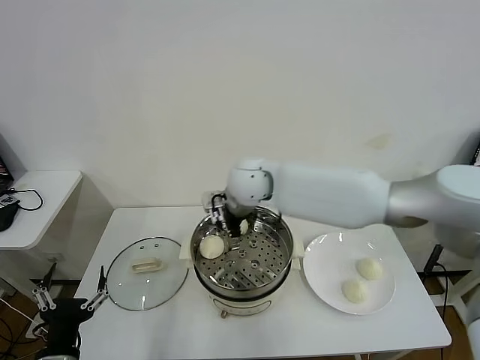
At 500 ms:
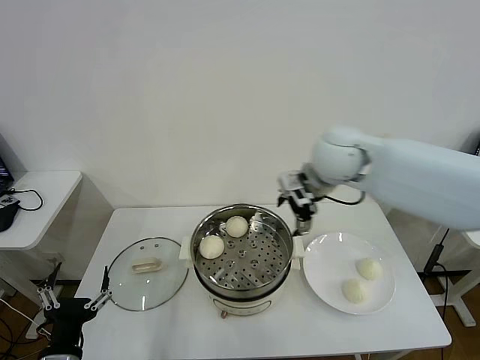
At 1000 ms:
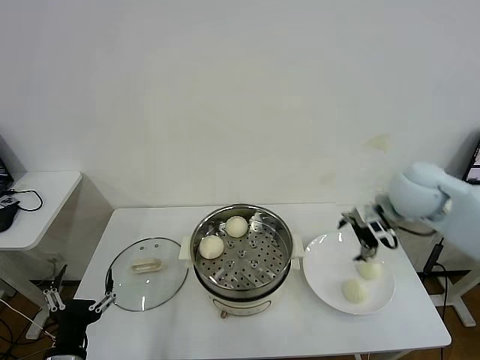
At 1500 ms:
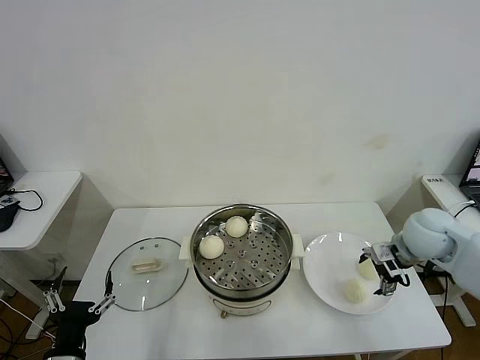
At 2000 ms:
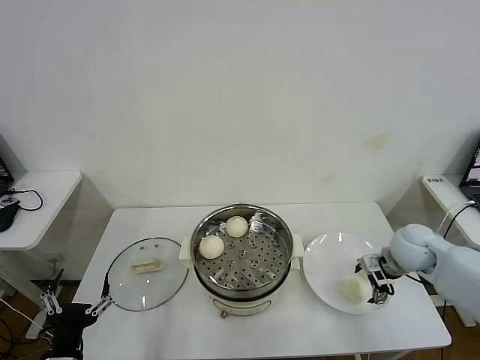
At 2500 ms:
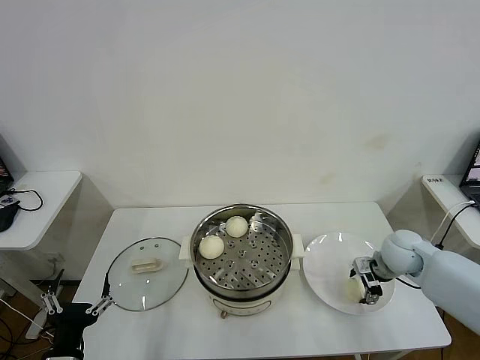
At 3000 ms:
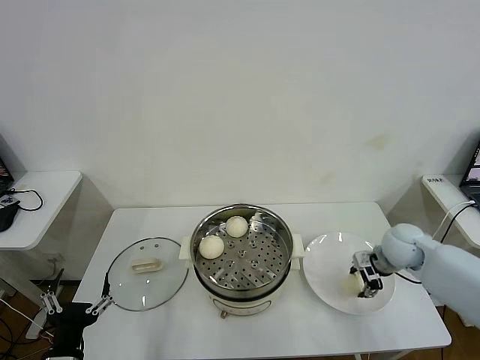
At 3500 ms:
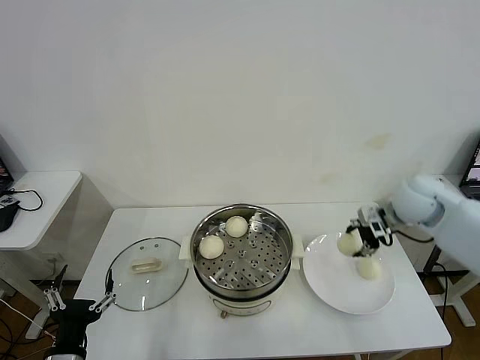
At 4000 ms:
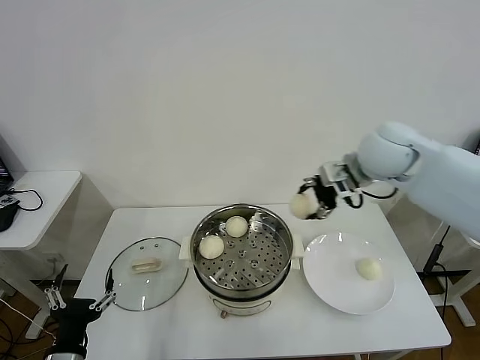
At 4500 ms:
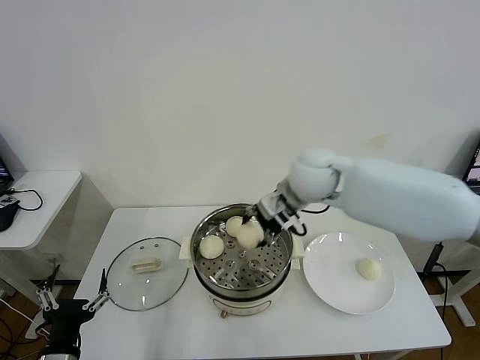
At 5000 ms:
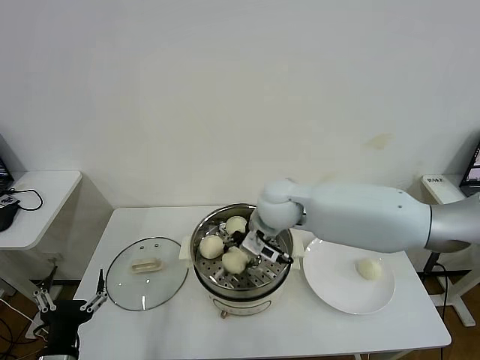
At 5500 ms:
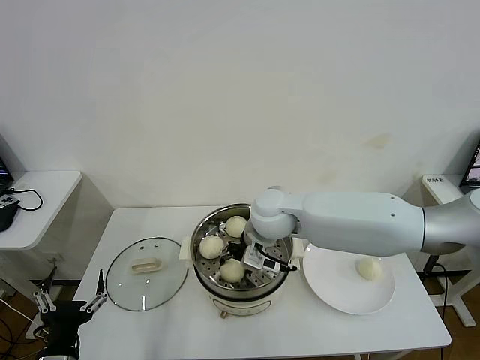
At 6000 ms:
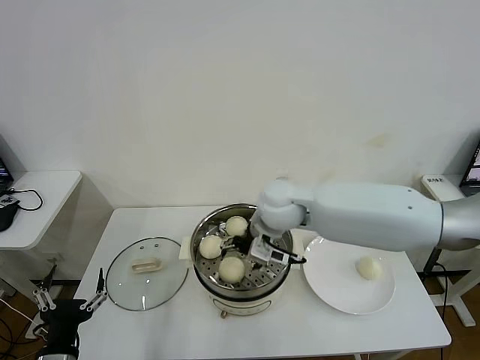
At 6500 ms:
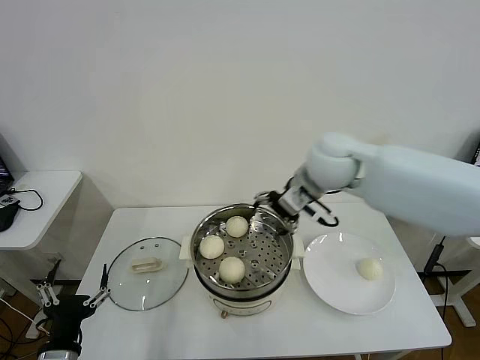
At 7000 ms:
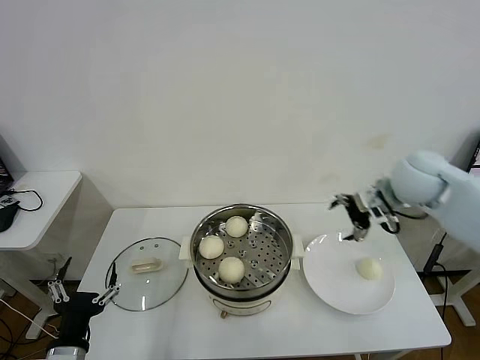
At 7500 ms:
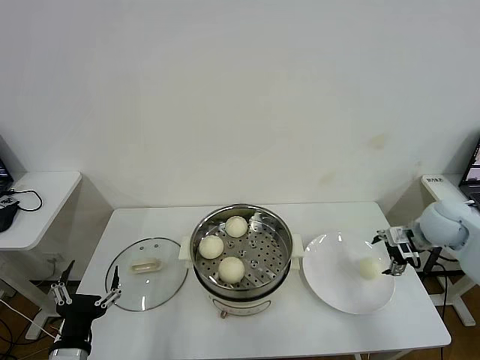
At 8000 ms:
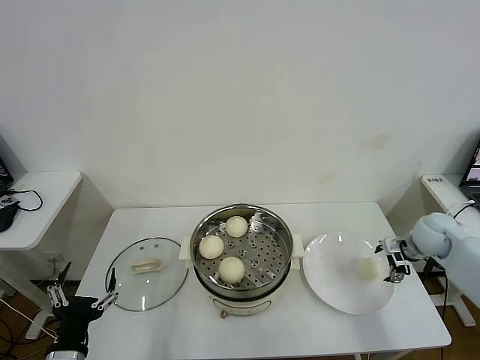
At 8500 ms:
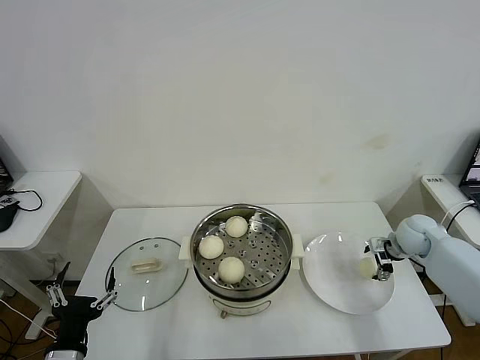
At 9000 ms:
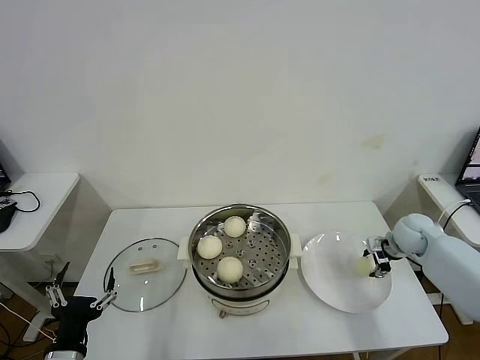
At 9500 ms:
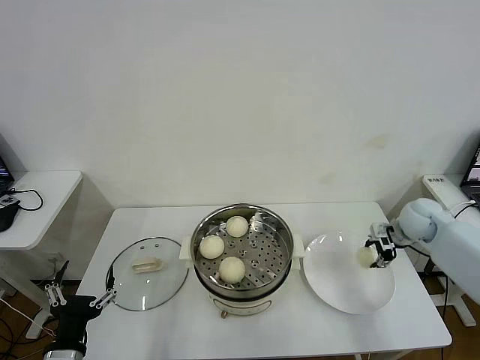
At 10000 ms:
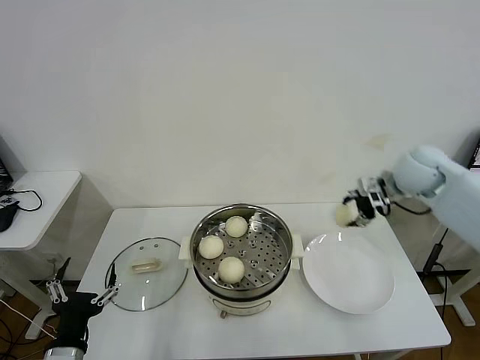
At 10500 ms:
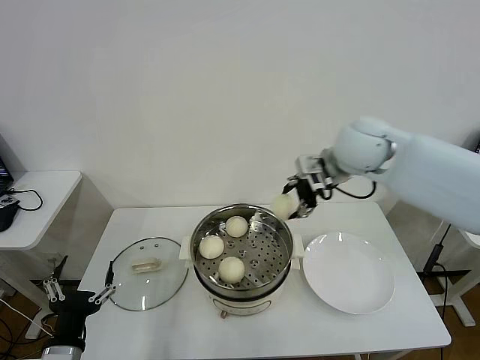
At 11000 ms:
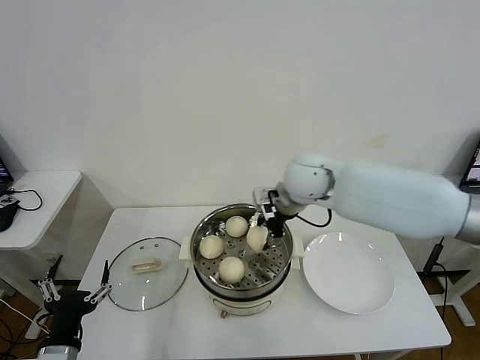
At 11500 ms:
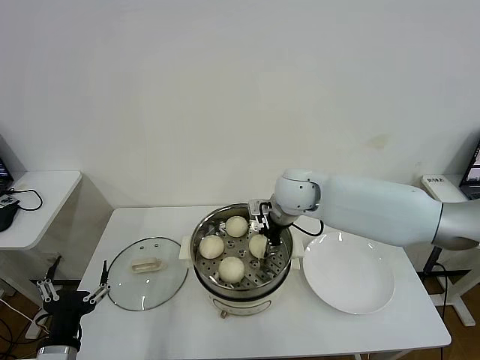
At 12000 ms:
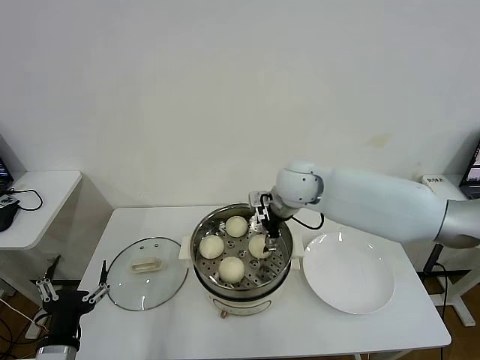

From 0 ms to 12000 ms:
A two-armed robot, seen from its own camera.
Task of the whole recording: take steamed baozi put them in steamer then cover it.
Step, from 0 ms to 2500 ms: Grasp the baozi in the plate with right gripper.
Step, from 3000 ms to 5500 ms: Place the baozi on the steamer with right gripper.
Step, from 6000 ms to 9000 ms: Grasp the baozi in the plate with right gripper.
Step, from 9500 ms to 11500 ms: Place the baozi on the steamer with right gripper.
From 0 ms to 2000 ms: The right gripper shifts about 35 cm to the right.
From 2000 ms to 4000 ms: The right gripper shifts roughly 25 cm upward and to the left, and closes.
From 4000 ms to 6000 ms: The right gripper goes some 20 cm to the left and downward, and opens.
From 6000 ms to 8000 ms: The right gripper heads to the right, covering about 40 cm.
From 8000 ms to 10000 ms: The right gripper travels upward and to the left by roughly 20 cm, and closes up.
From 10000 ms to 12000 ms: The right gripper shifts approximately 25 cm to the left, and opens.

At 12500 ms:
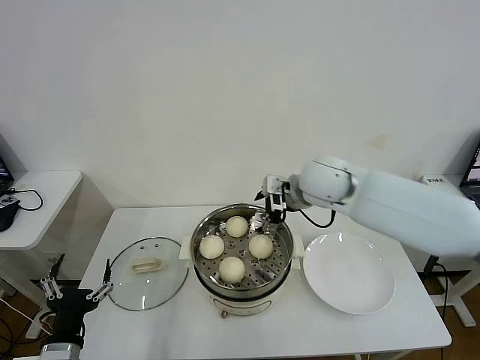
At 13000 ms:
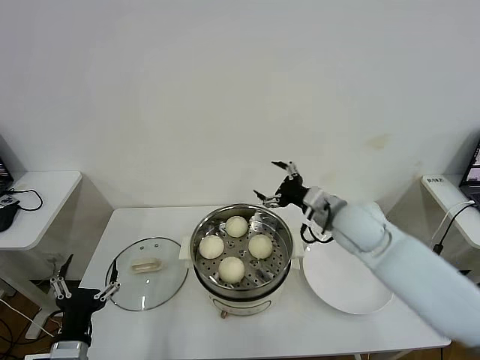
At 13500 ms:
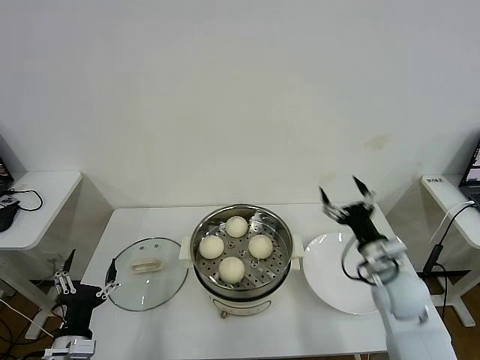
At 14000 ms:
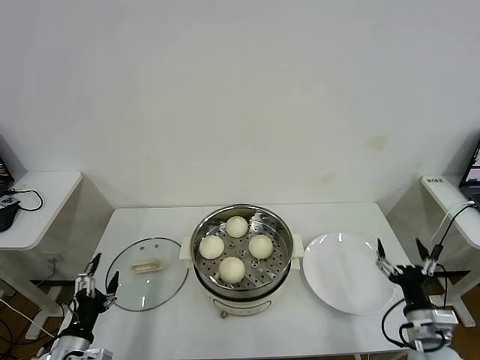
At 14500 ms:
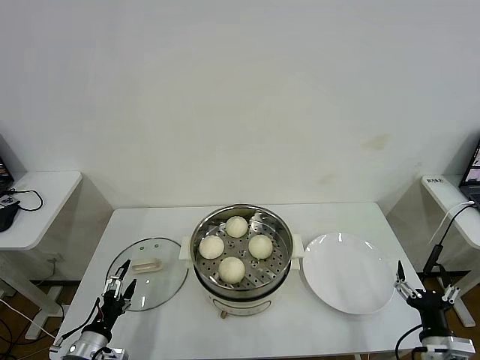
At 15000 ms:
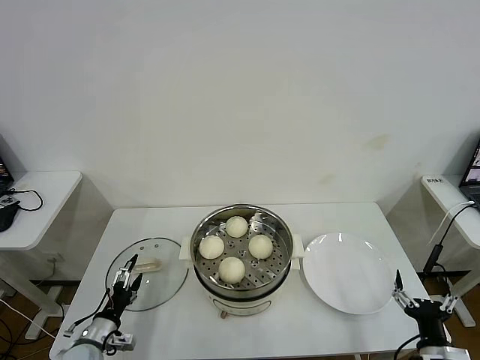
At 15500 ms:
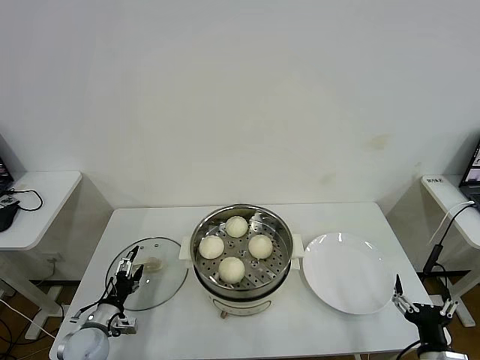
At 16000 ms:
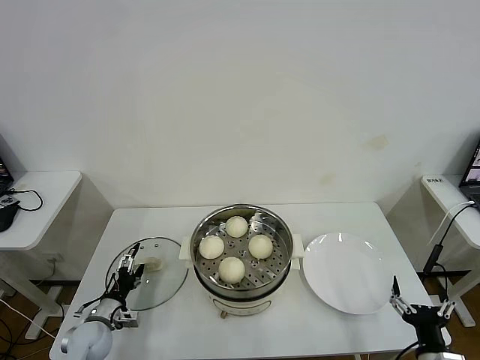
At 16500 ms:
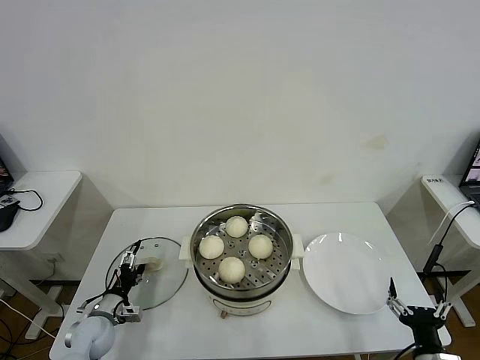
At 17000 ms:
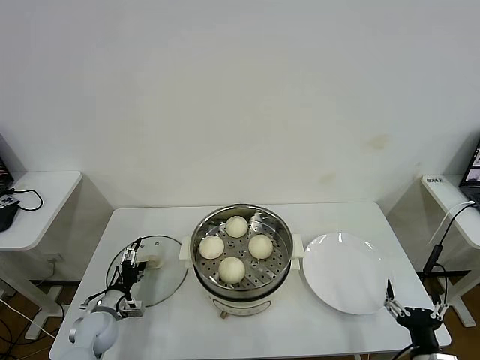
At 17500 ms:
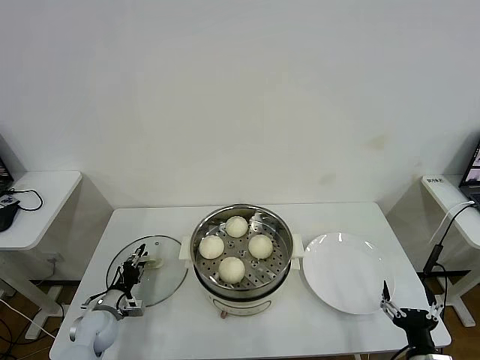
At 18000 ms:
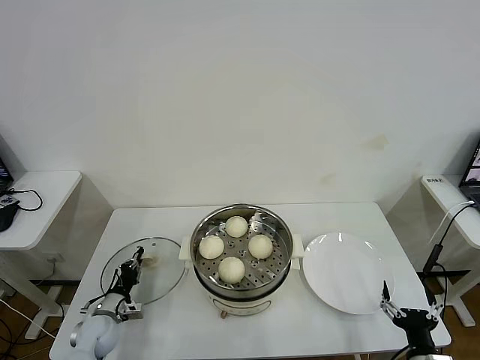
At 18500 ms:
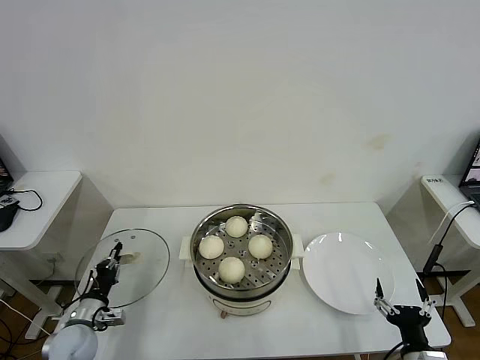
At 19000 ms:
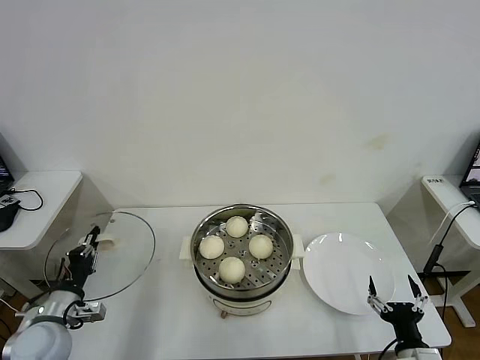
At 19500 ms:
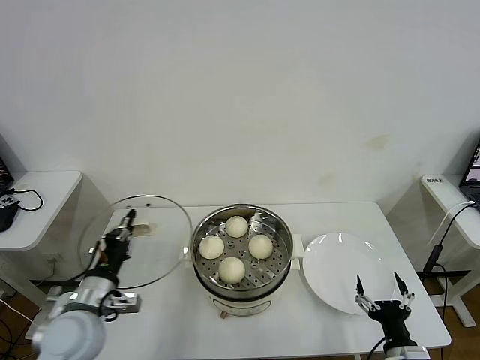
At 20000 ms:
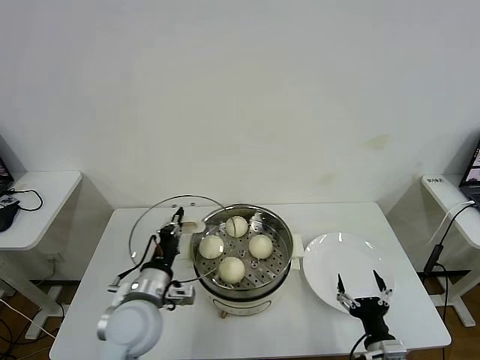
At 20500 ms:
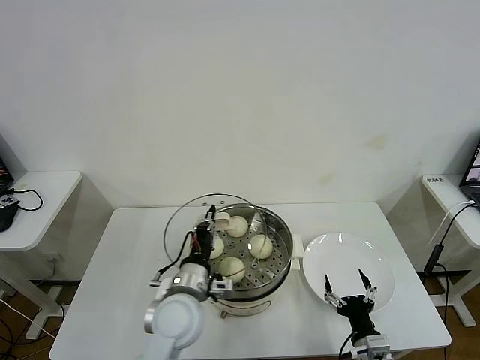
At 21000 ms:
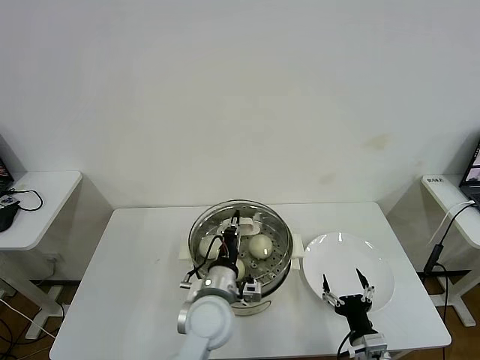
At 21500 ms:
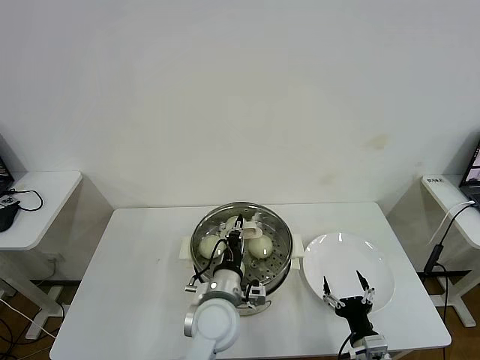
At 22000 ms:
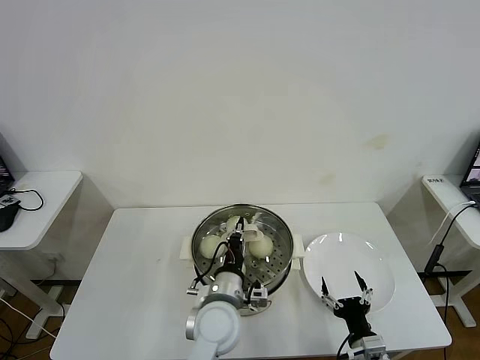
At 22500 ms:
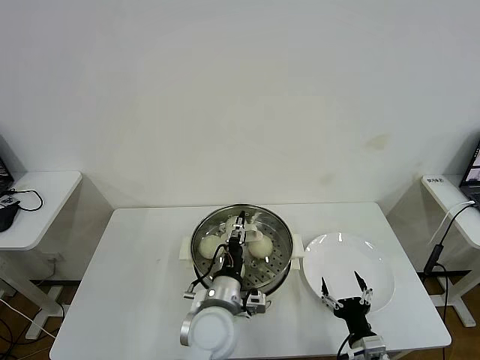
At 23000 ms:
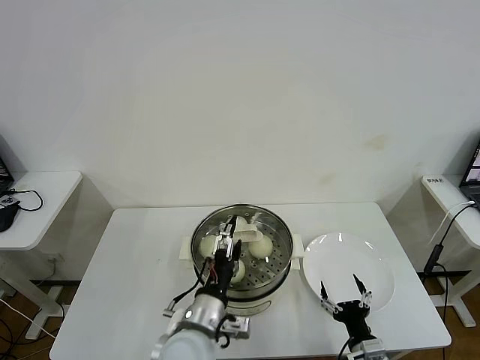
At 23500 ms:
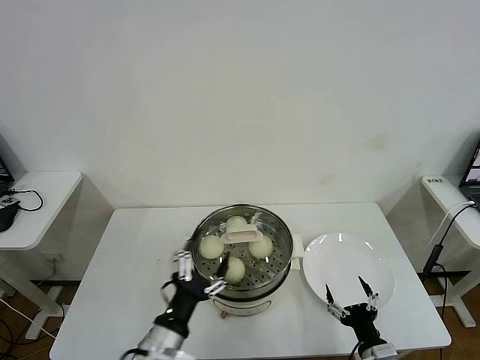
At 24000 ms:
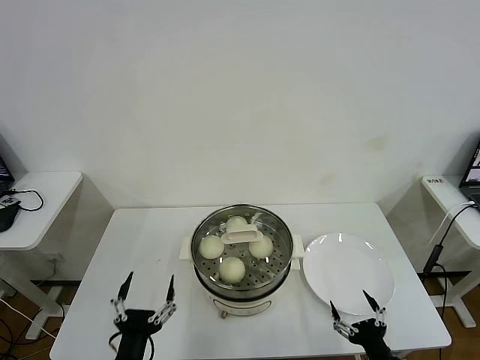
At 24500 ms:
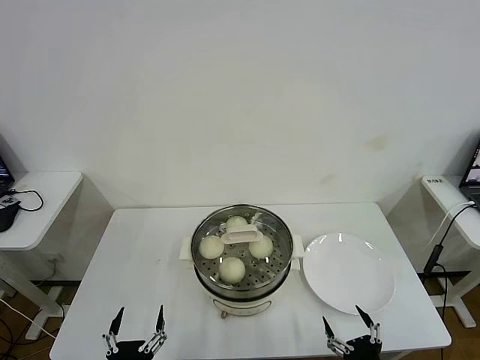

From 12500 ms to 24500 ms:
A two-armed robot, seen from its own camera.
Task of the whole recording: take steamed baozi put them in steamer then cover it.
Step, from 12500 ms to 17500 ms: Grasp the pot lid with left gripper.
Step, from 18000 ms to 22500 ms: Place the pot lid on the steamer with left gripper.
From 12500 ms to 14500 ms: The left gripper goes approximately 15 cm downward, forward and to the left. The right gripper travels backward, downward and to the right by roughly 50 cm.
From 14500 ms to 16500 ms: The left gripper travels forward and downward by about 10 cm.
From 16500 ms to 18500 ms: The left gripper closes up.
From 18500 ms to 20500 ms: The right gripper shifts roughly 5 cm to the left; the left gripper goes about 30 cm to the right and upward.
From 20500 ms to 22500 ms: The left gripper goes approximately 10 cm to the right, and opens.
From 22500 ms to 24500 ms: The right gripper shifts approximately 10 cm backward; the left gripper goes roughly 25 cm backward and to the left, and opens its fingers.
